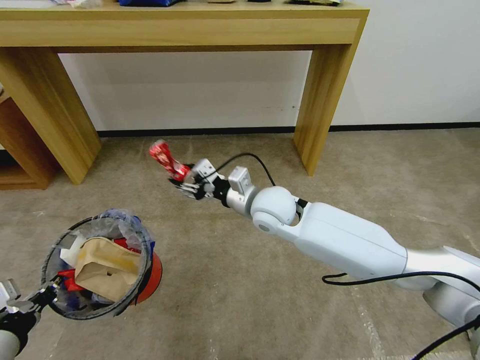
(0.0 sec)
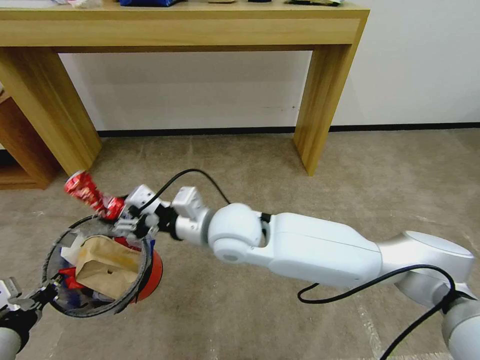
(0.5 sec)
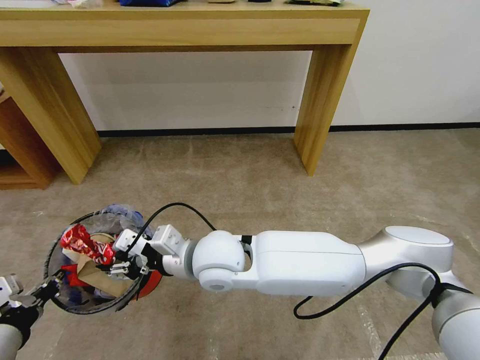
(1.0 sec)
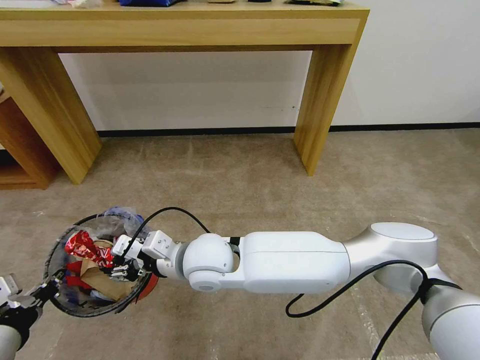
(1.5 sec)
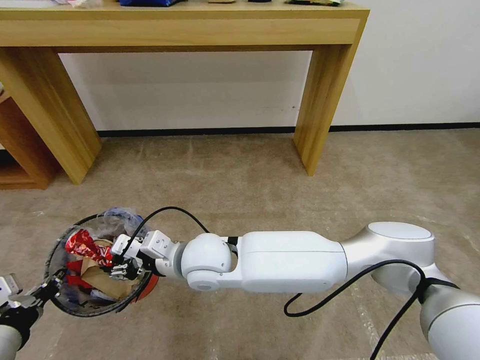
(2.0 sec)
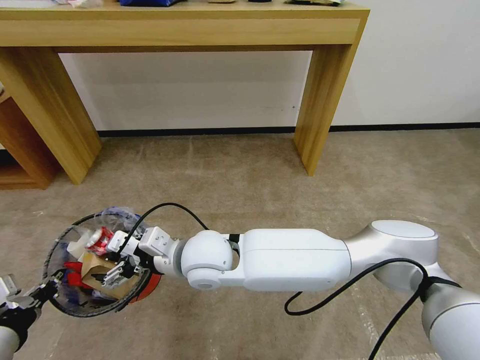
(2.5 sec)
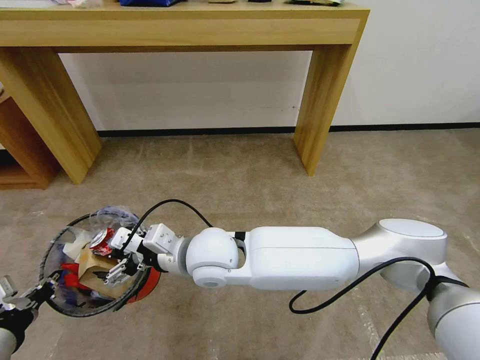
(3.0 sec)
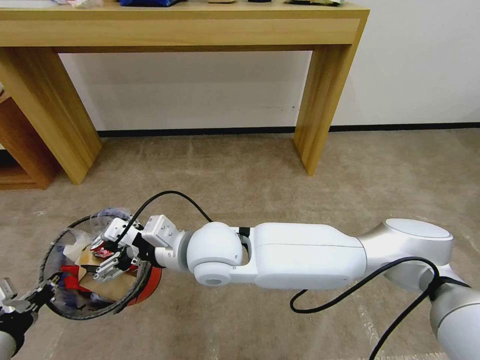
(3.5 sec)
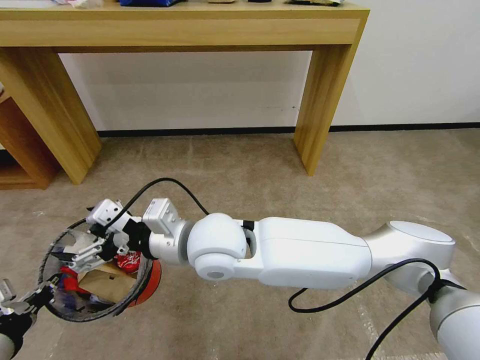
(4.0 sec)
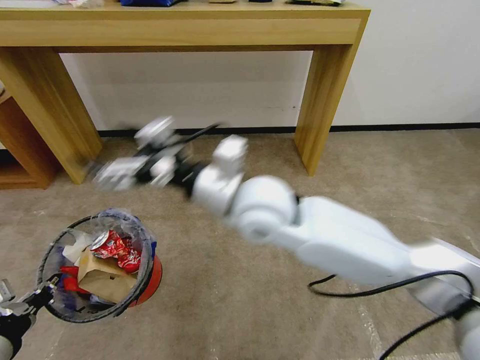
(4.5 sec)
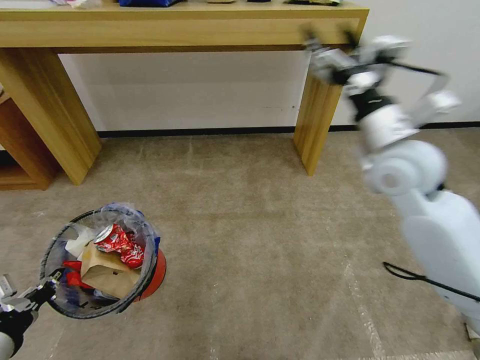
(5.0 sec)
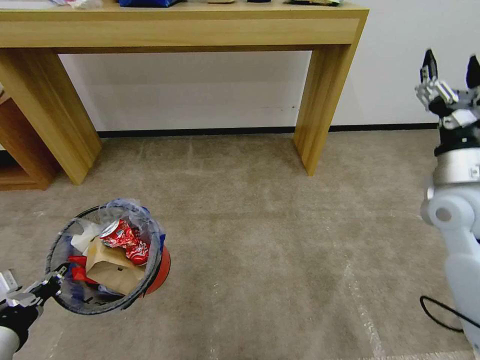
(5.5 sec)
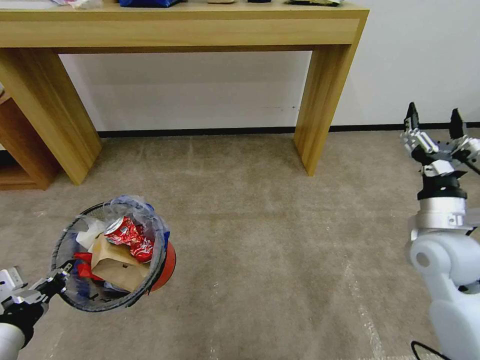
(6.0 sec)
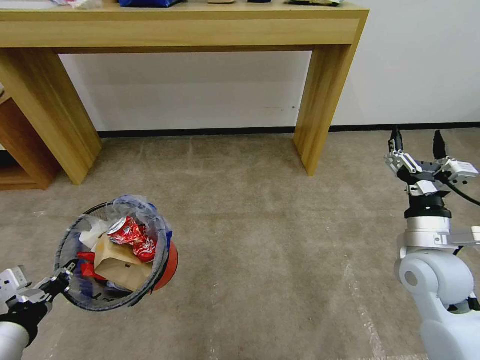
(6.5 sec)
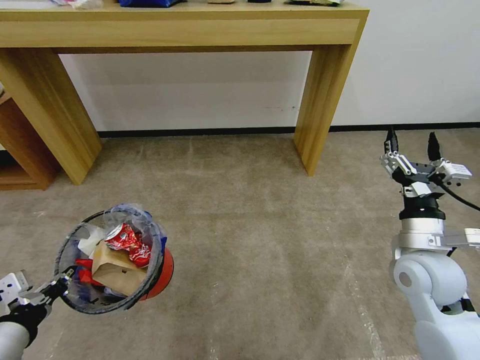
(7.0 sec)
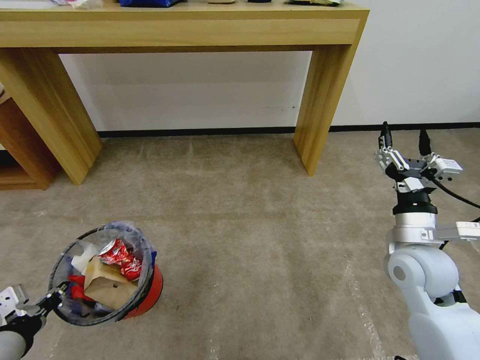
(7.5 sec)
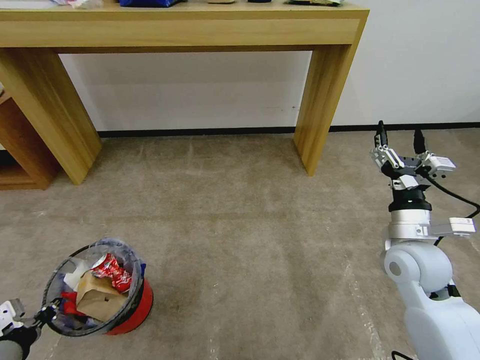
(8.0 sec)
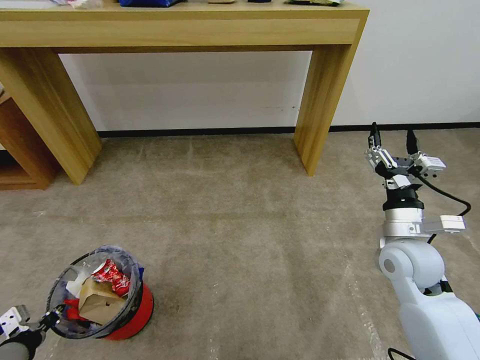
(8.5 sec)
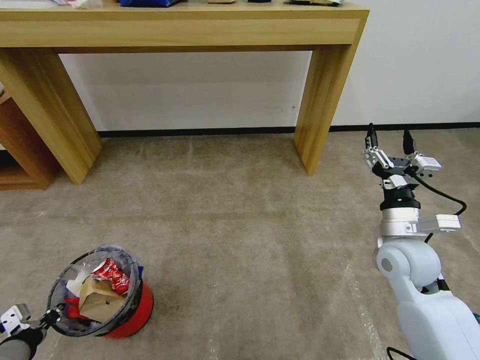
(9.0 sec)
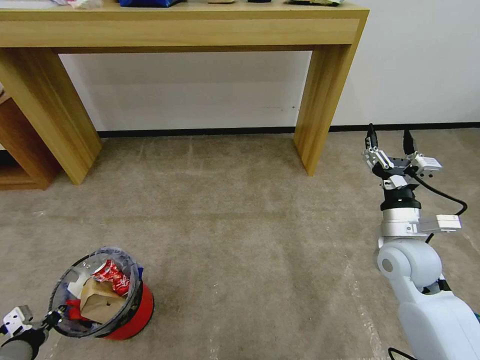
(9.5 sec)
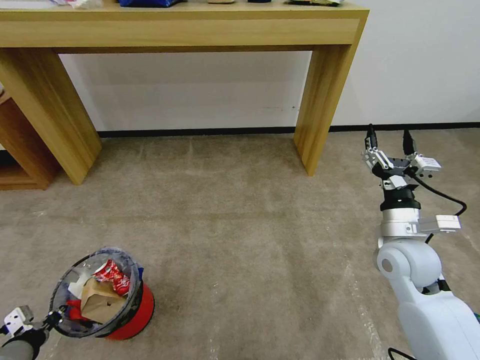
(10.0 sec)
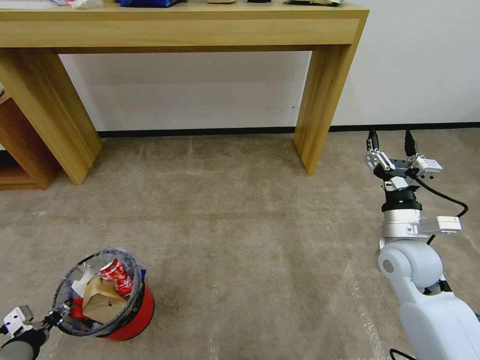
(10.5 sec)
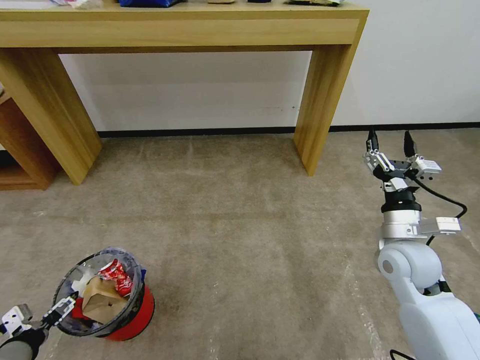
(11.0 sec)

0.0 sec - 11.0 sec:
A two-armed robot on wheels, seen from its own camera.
Task of the whole recording: Pick up the trash bin and place the garbage on the floor into it.
0.0 sec - 2.0 sec: The right gripper shifts roughly 20 cm to the left and backward.
2.0 sec - 3.5 sec: The right gripper heads upward, covering some 5 cm, and opens its fingers.
3.5 sec - 5.5 sec: The right gripper heads to the right, covering roughly 40 cm.
5.5 sec - 7.5 sec: The left gripper moves downward, about 5 cm, while the right gripper is displaced downward, to the left and backward by approximately 10 cm.
7.5 sec - 9.0 sec: The left gripper travels downward by about 5 cm.
9.0 sec - 11.0 sec: The left gripper opens up.

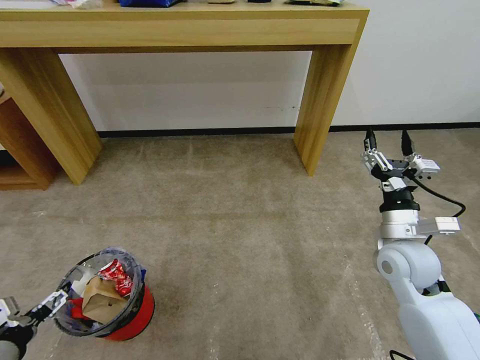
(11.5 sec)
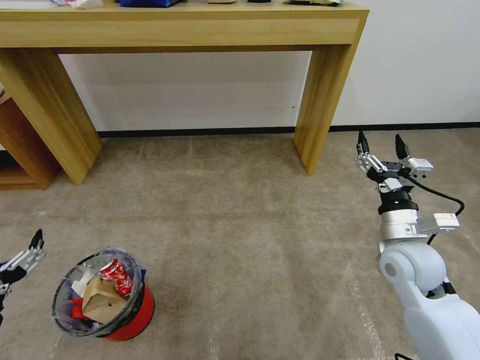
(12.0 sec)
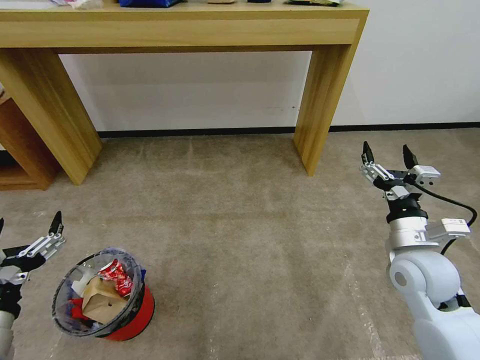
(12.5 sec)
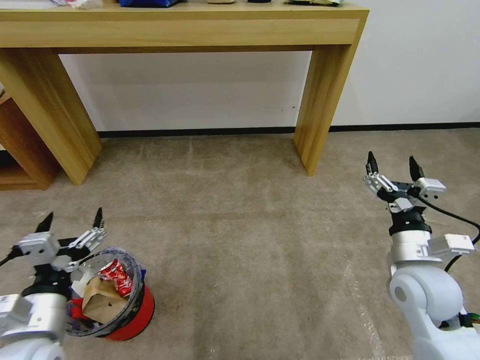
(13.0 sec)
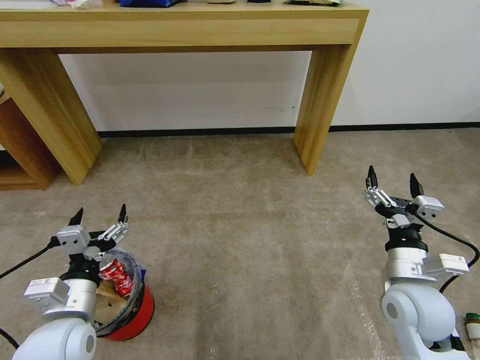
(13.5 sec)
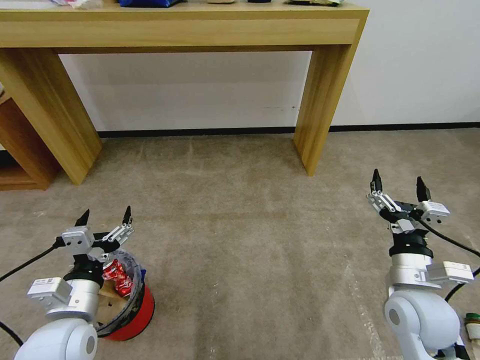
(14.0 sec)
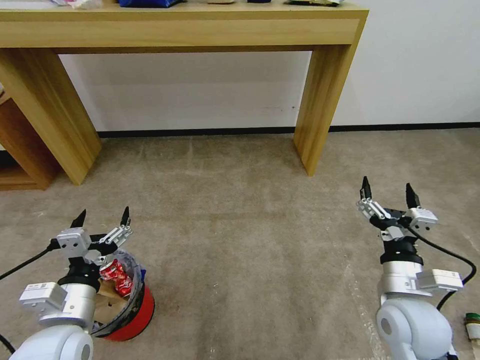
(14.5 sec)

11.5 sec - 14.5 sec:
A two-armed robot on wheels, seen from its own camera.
Task of the whole recording: Pick up the trash bin and place the garbage on the floor into it.
11.5 sec - 13.0 sec: The left gripper moves to the right and upward, approximately 10 cm, while the right gripper heads backward, covering roughly 5 cm.
13.0 sec - 14.5 sec: The right gripper changes place by roughly 5 cm.

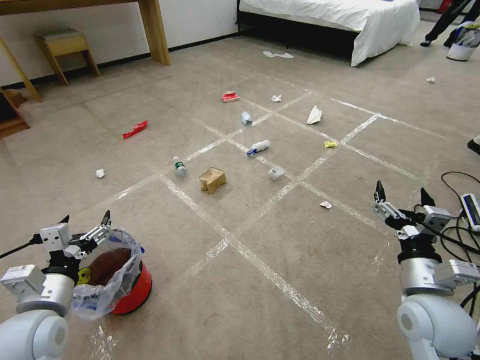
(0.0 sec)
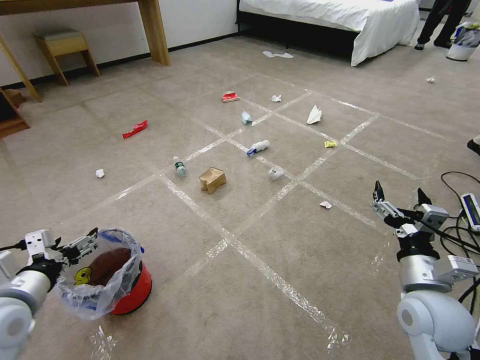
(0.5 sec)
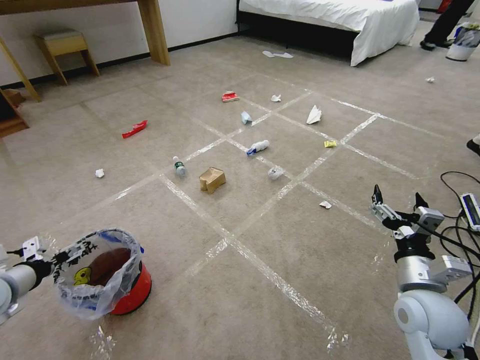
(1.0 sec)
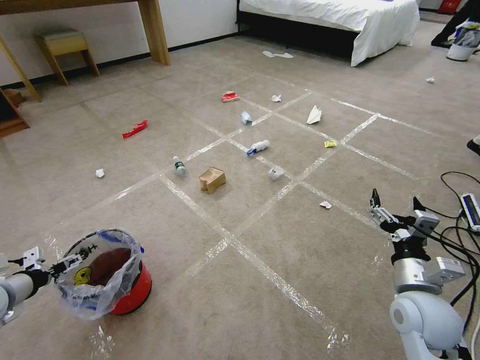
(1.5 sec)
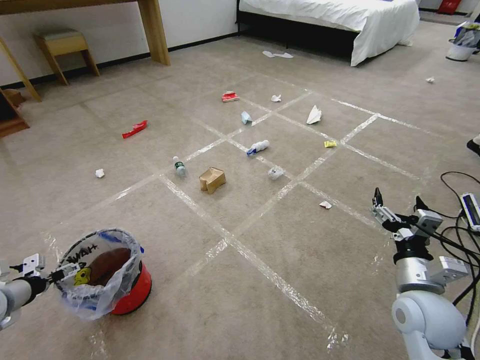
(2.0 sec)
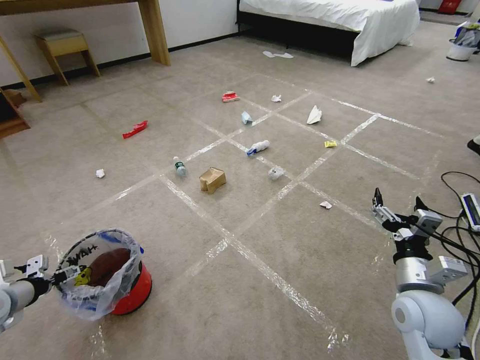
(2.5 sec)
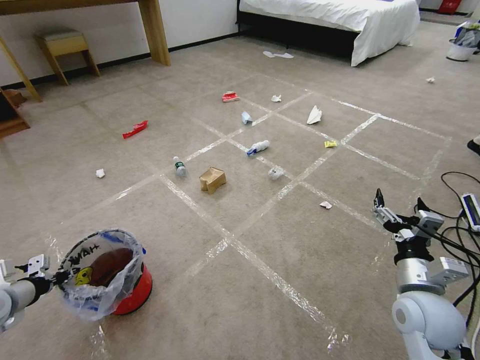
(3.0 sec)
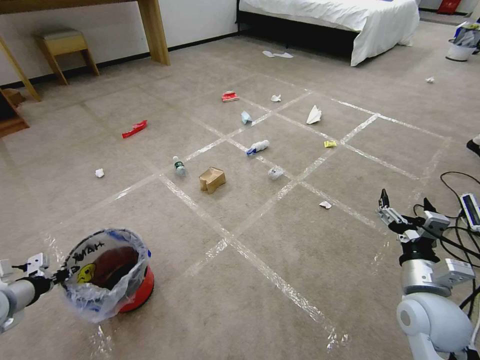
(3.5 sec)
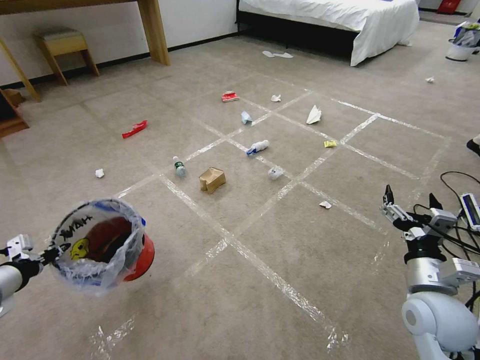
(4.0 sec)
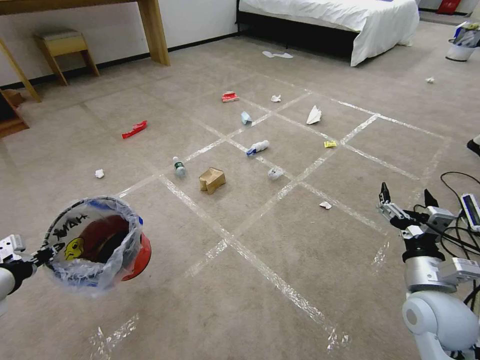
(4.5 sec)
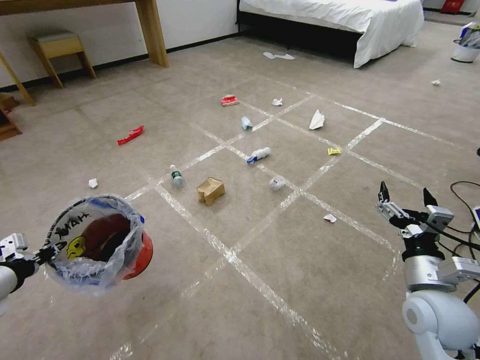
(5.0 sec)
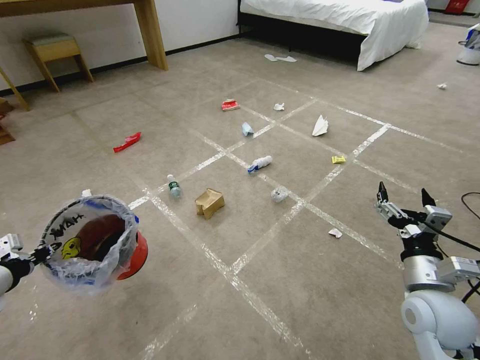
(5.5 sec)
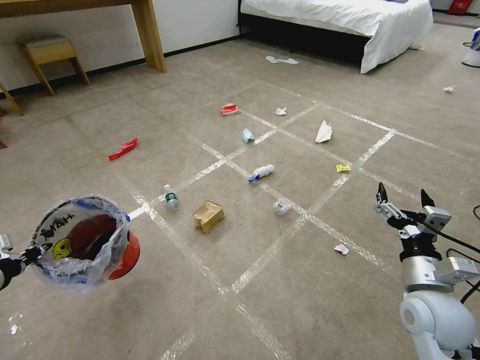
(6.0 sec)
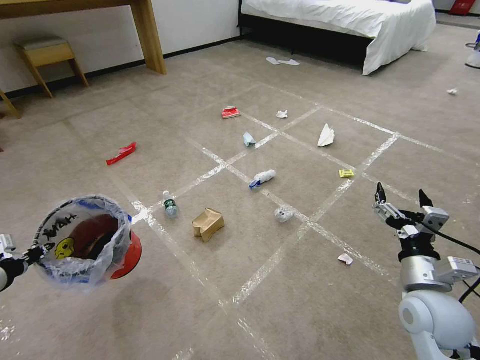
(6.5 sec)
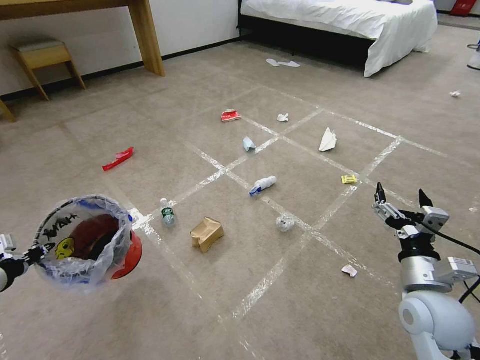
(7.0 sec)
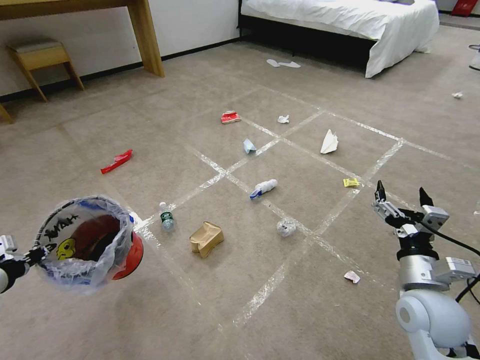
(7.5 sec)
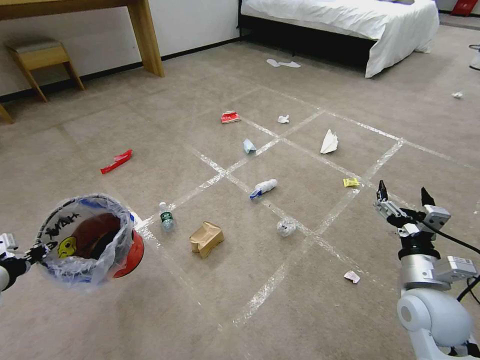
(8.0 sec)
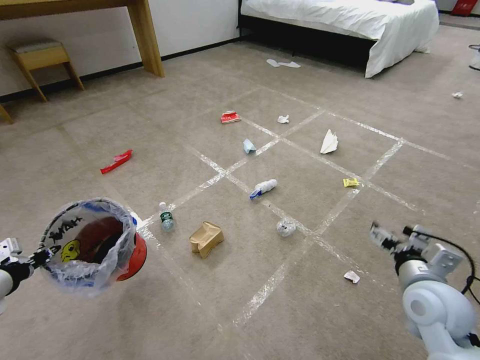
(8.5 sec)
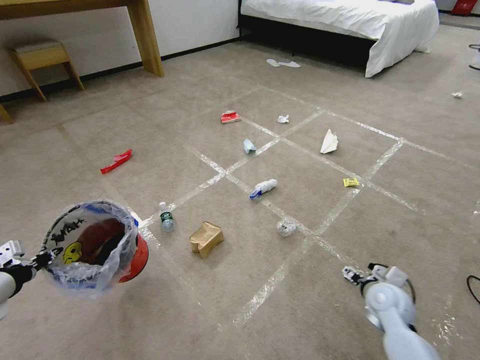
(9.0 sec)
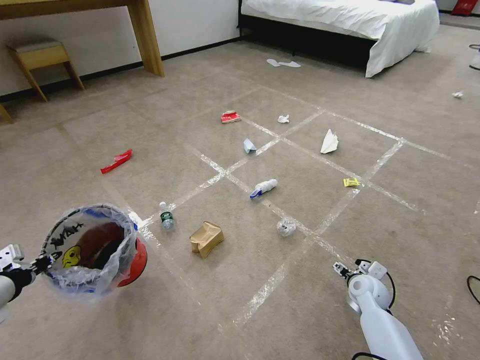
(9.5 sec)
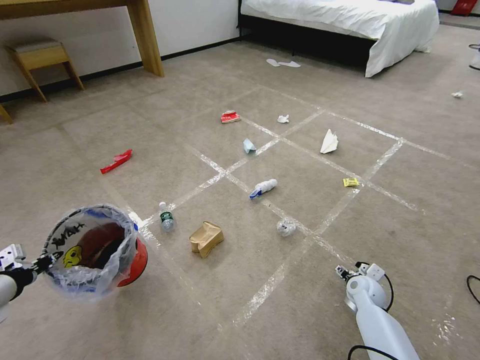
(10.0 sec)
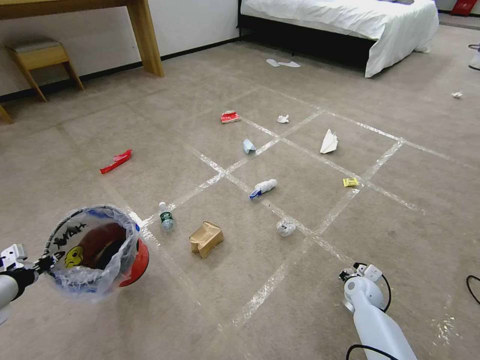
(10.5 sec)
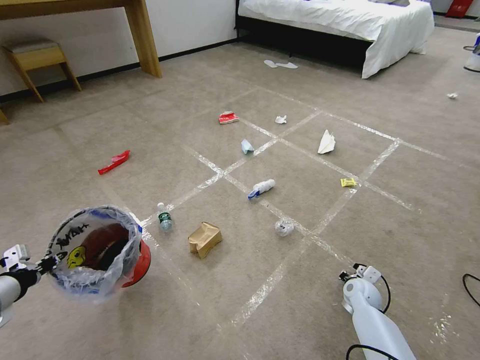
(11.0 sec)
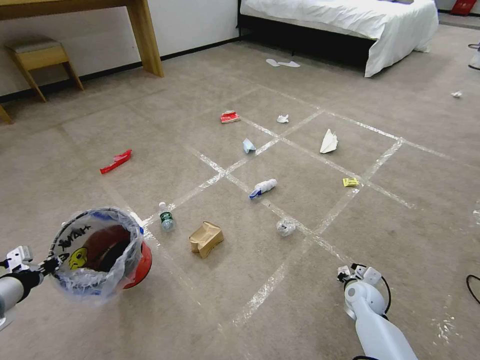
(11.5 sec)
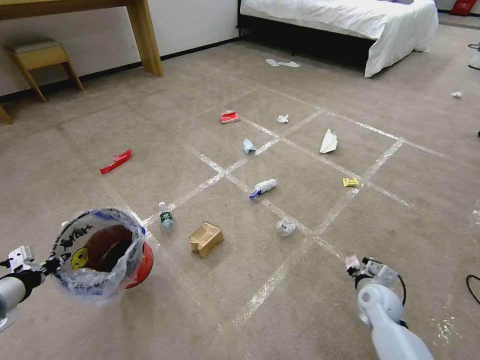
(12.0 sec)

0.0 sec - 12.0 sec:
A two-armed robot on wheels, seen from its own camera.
Task of the whole recording: Pick up the trash bin and place the garbage on the floor into it.
2.0 sec - 4.0 sec: The left gripper shifts approximately 5 cm upward, and closes up.
6.0 sec - 8.0 sec: Both grippers stay put.
8.0 sec - 10.0 sec: The right gripper travels downward and forward by approximately 25 cm.
10.0 sec - 12.0 sec: The right gripper ends up roughly 5 cm from where it was, and closes up.
